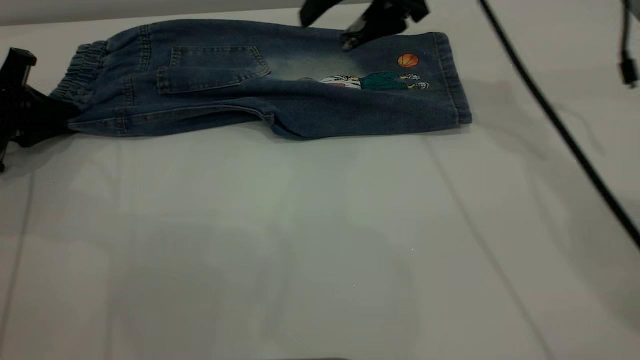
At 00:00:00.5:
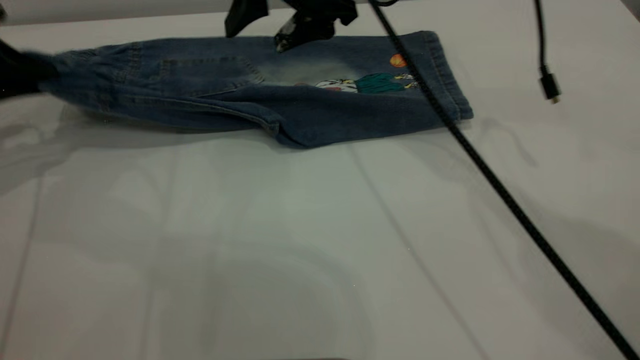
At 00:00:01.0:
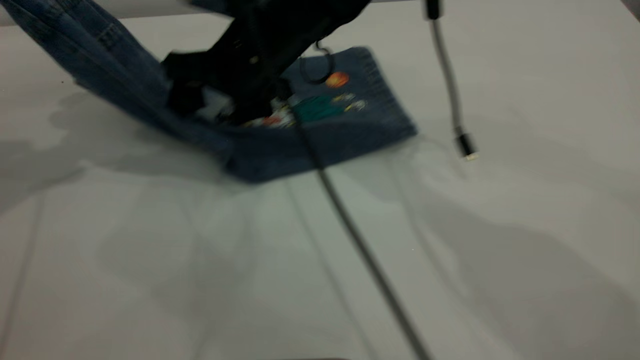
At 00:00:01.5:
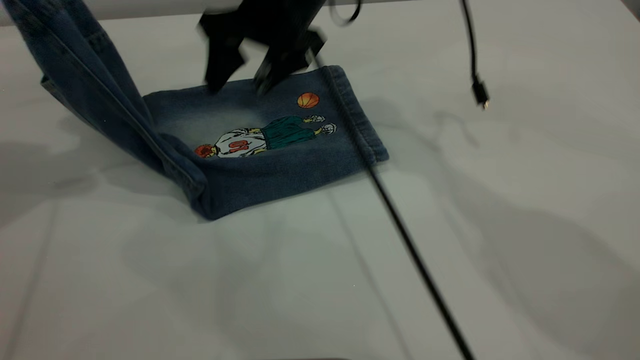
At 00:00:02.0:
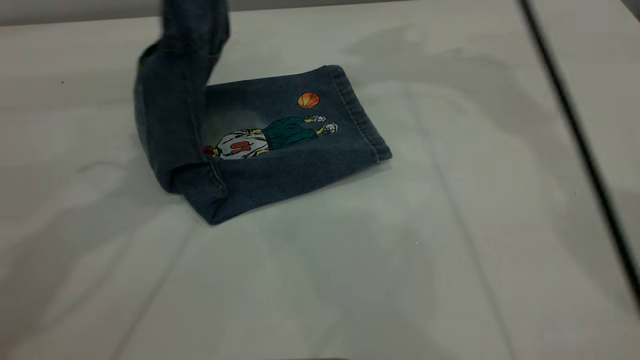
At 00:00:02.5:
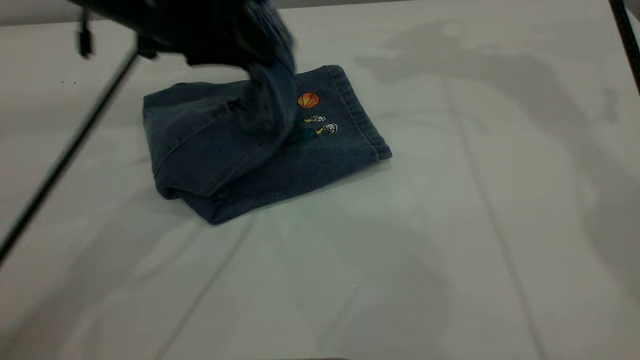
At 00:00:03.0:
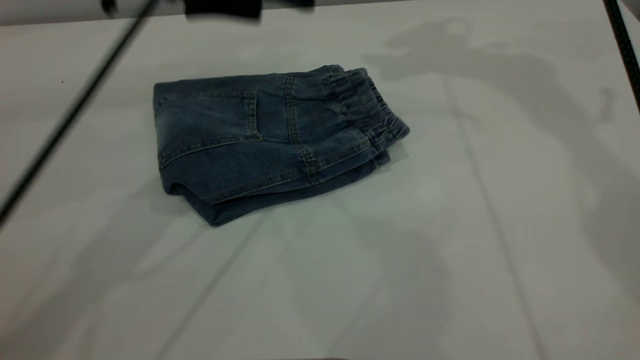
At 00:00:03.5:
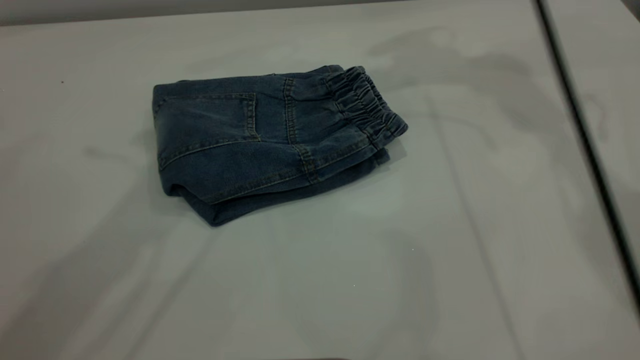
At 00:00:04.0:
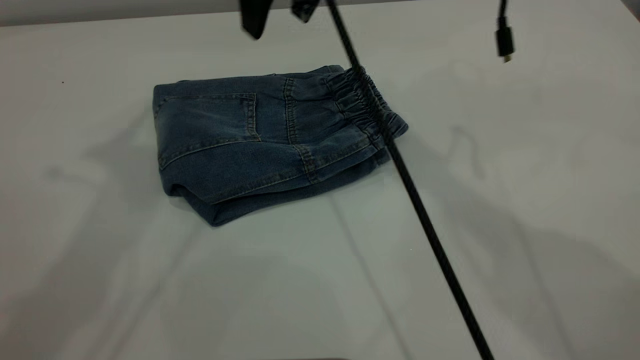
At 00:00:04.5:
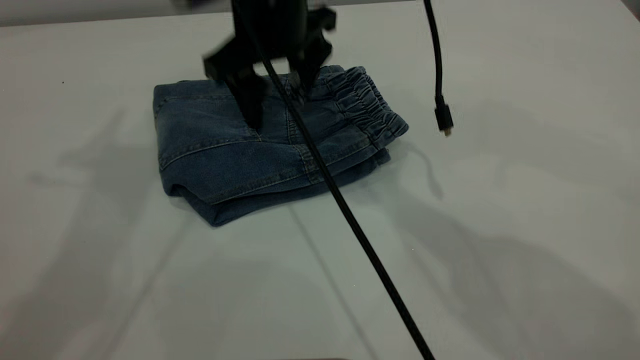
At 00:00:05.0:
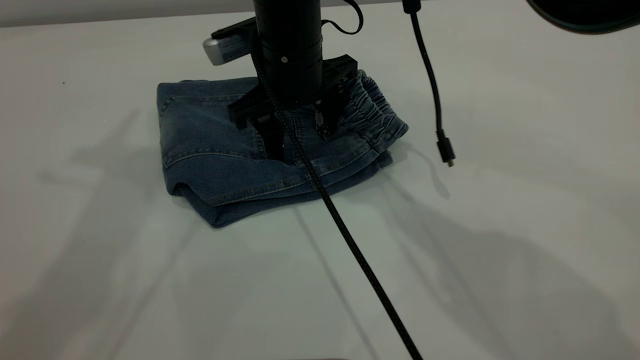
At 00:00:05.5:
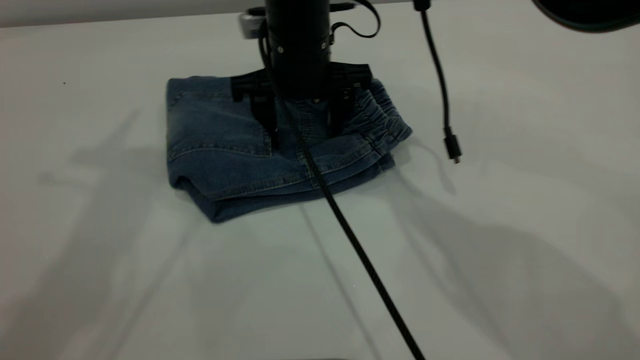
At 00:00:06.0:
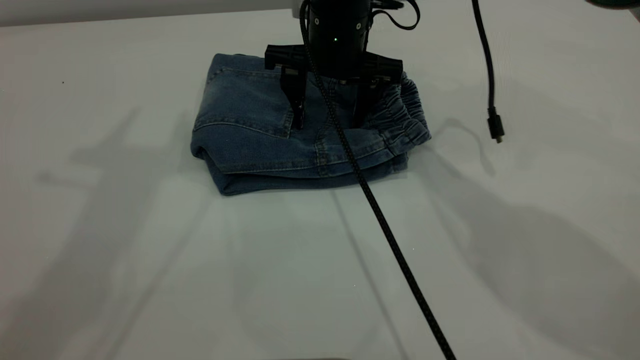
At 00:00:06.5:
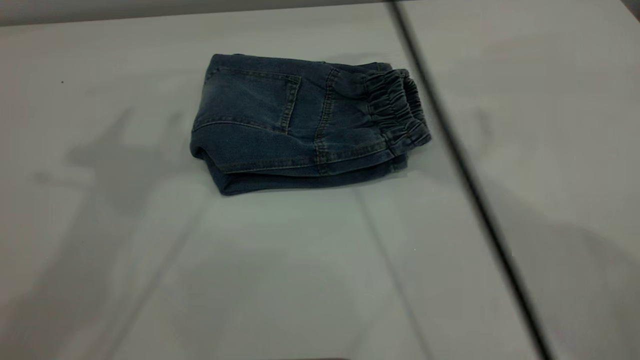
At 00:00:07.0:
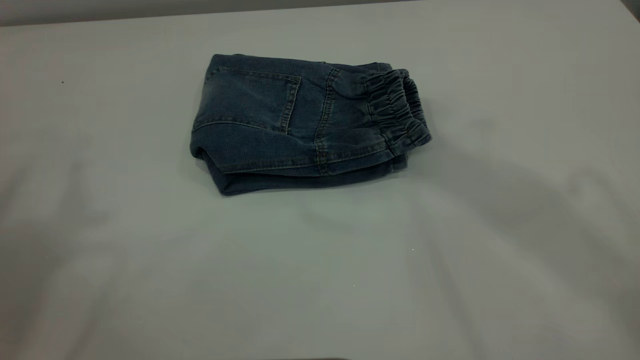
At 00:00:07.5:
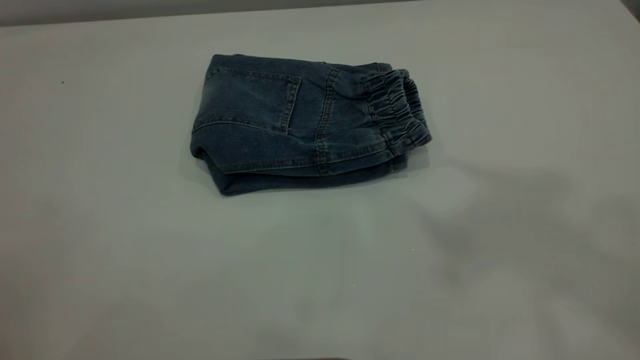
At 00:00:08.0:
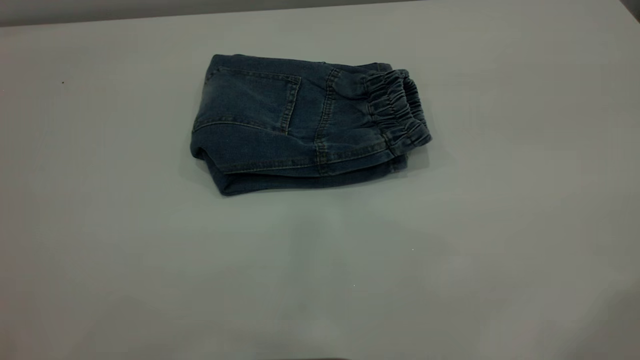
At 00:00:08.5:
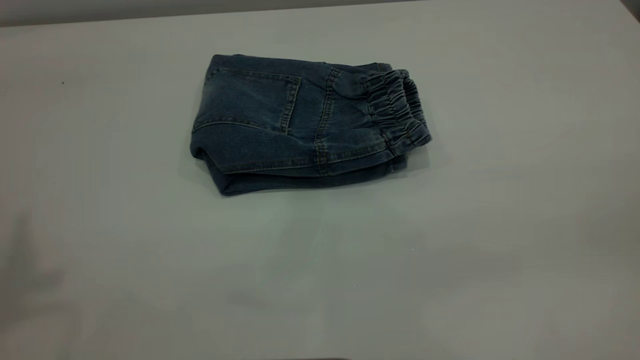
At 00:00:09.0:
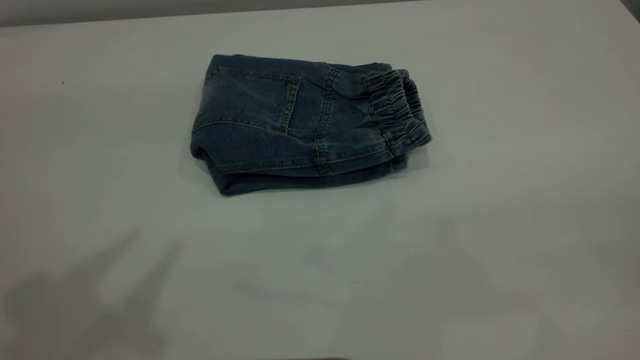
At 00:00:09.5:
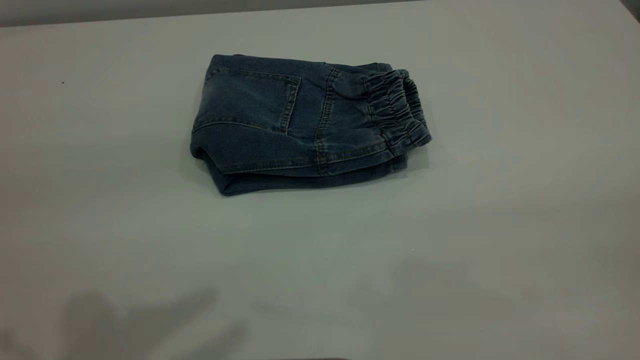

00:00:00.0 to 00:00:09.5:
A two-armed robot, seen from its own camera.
Step, 00:00:00.0 to 00:00:03.0: Fold the pants from left to right.
00:00:00.0 to 00:00:02.0: The right gripper is displaced upward by some 15 cm; the left gripper shifts approximately 30 cm upward and to the right.
00:00:02.0 to 00:00:04.0: The left gripper heads upward, covering about 15 cm, and opens its fingers. Meanwhile the right gripper heads to the left, downward and backward, covering some 15 cm.
00:00:04.0 to 00:00:05.5: The right gripper heads downward, covering about 15 cm.
00:00:05.5 to 00:00:07.5: The left gripper moves backward, upward and to the left, approximately 25 cm. Meanwhile the right gripper travels upward and backward by approximately 50 cm.
